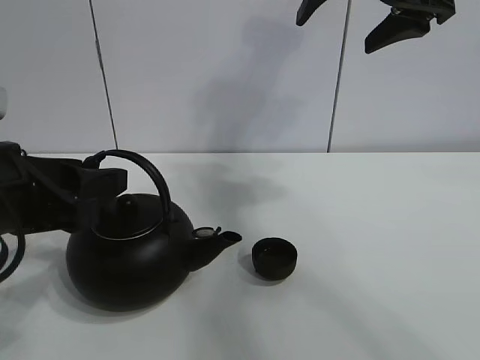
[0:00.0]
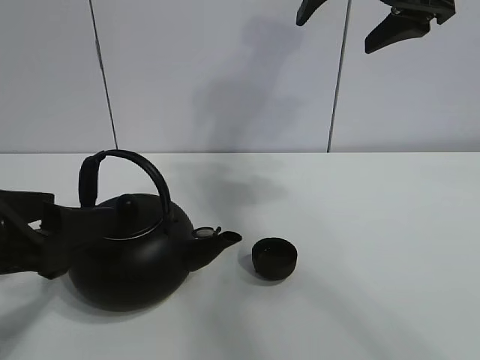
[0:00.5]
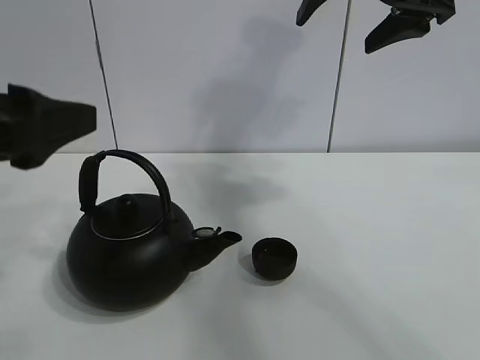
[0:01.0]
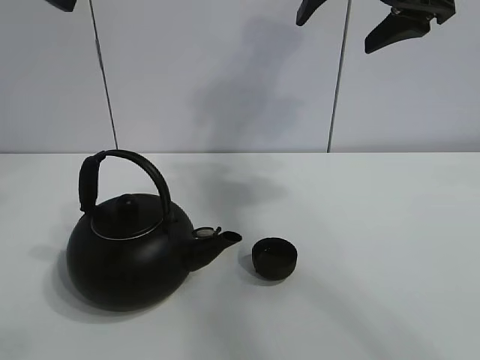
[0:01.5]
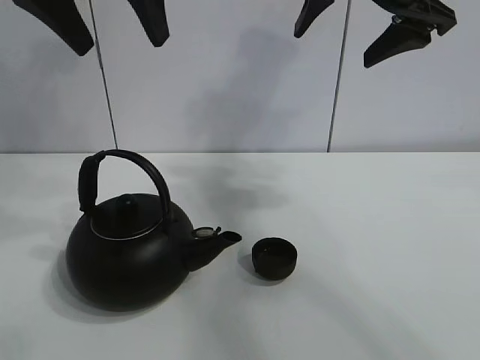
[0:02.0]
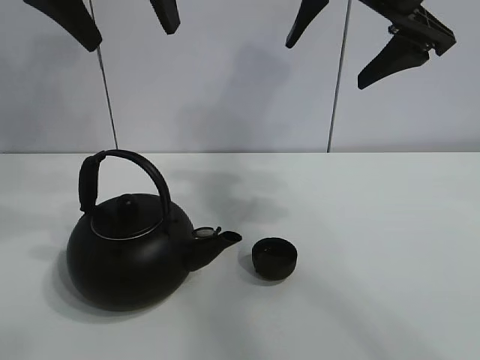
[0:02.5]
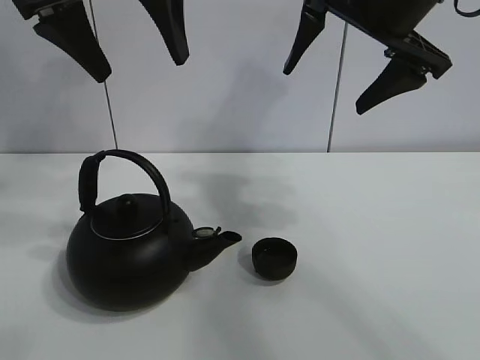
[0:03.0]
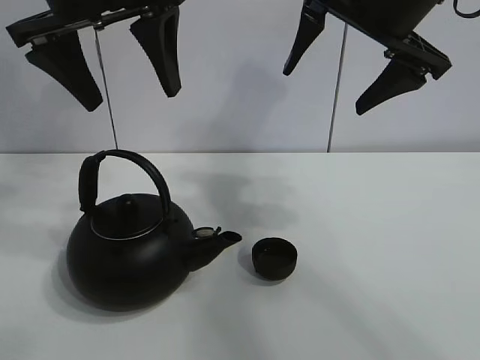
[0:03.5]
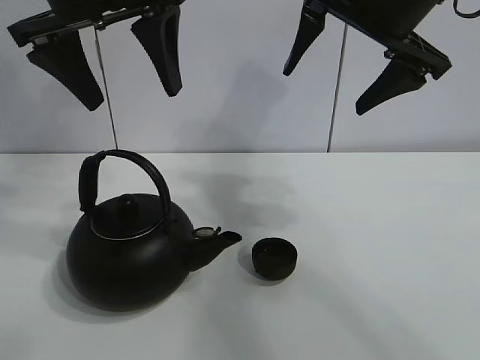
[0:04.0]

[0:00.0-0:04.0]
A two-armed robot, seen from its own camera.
Task of the whole recording: pour tea into the teacup.
0:00.0 to 0:02.0: The left gripper heads upward and forward, covering about 25 cm.
0:02.0 to 0:04.0: The grippers move only a little.

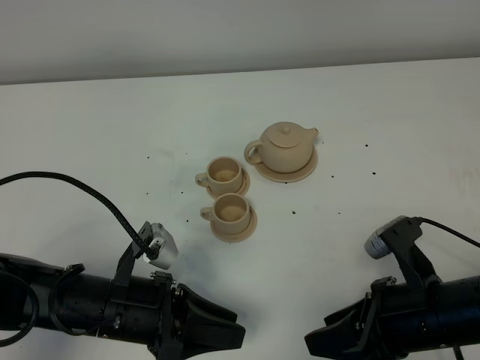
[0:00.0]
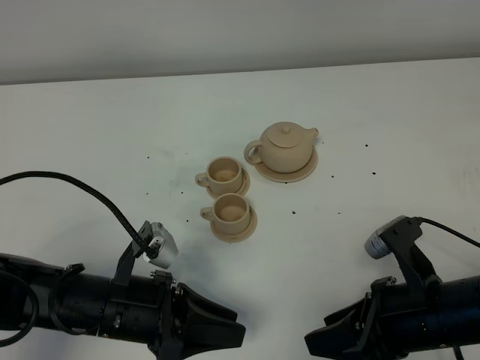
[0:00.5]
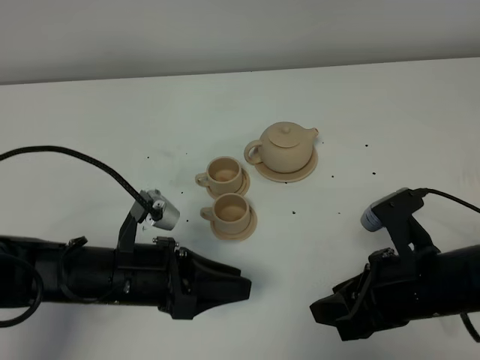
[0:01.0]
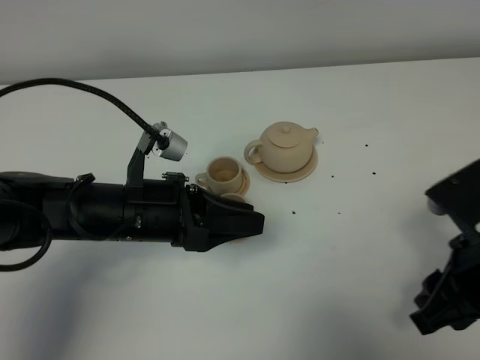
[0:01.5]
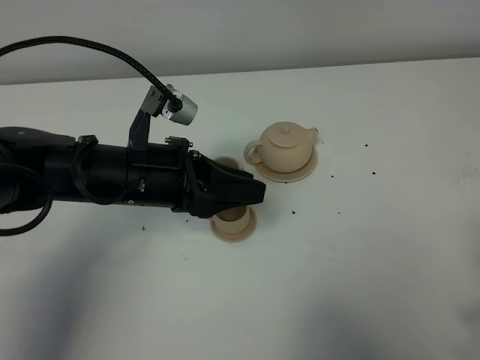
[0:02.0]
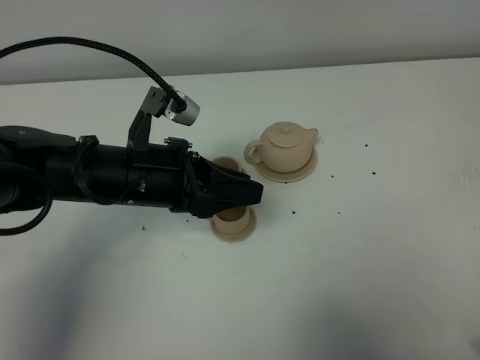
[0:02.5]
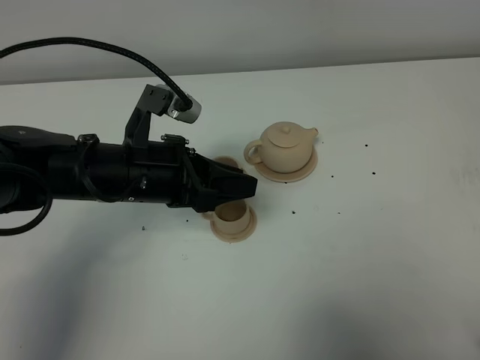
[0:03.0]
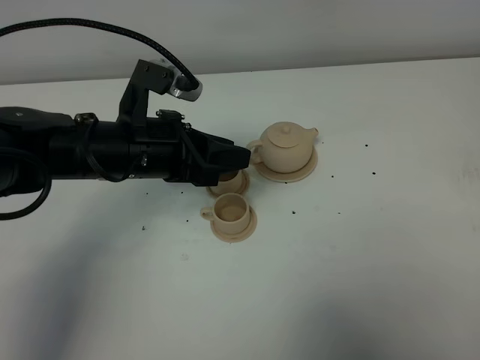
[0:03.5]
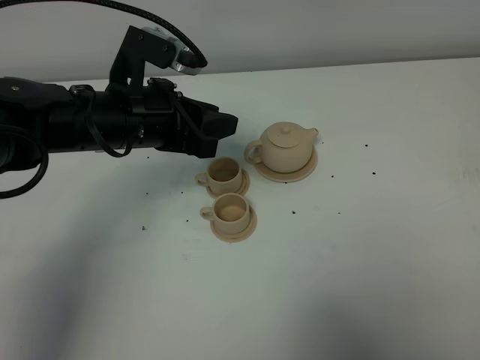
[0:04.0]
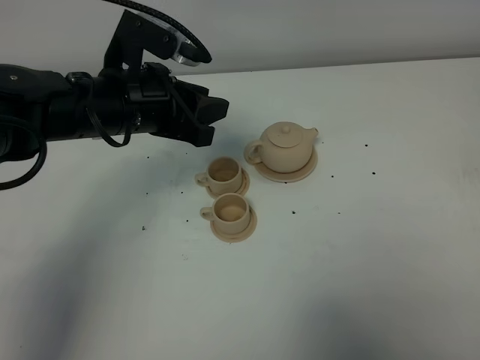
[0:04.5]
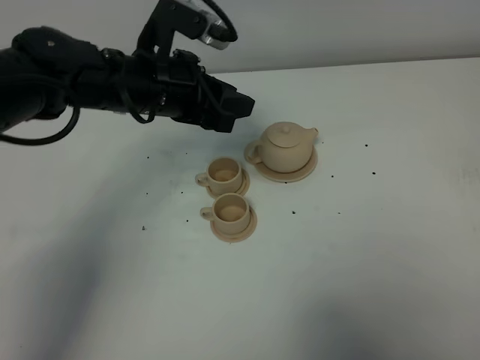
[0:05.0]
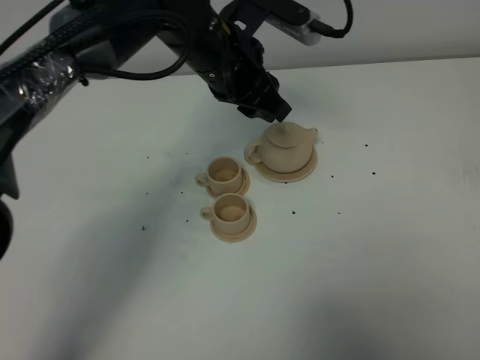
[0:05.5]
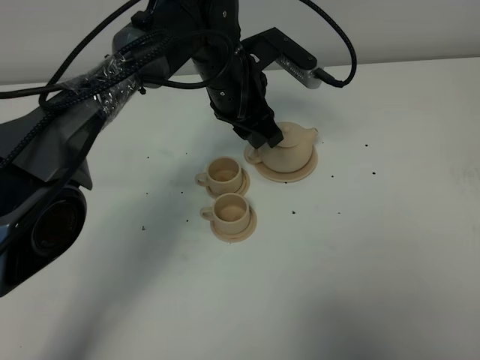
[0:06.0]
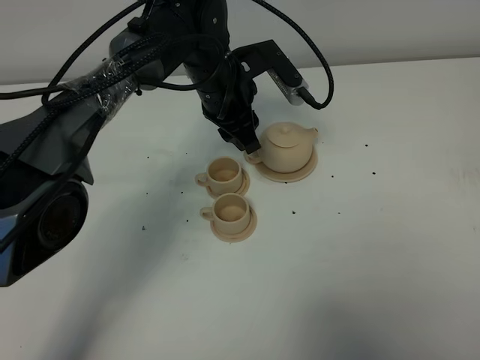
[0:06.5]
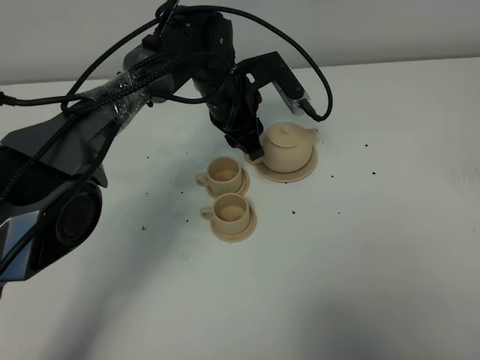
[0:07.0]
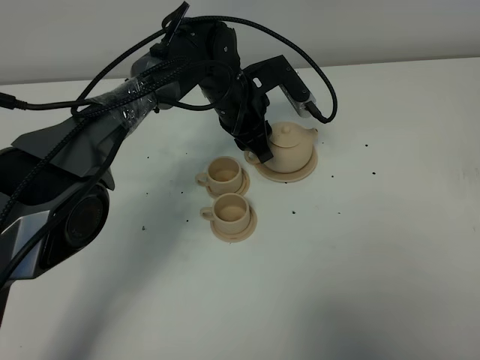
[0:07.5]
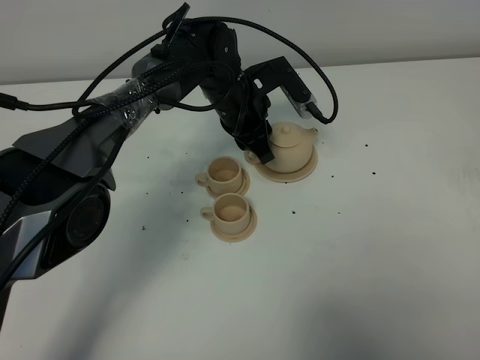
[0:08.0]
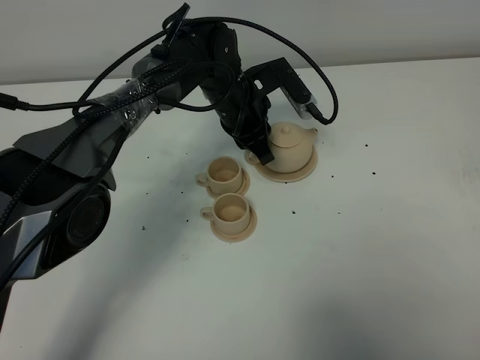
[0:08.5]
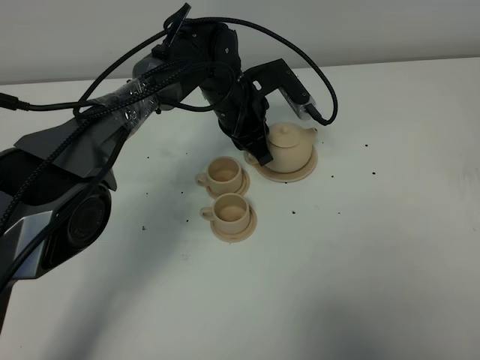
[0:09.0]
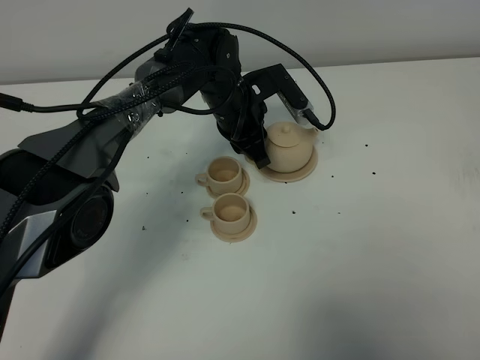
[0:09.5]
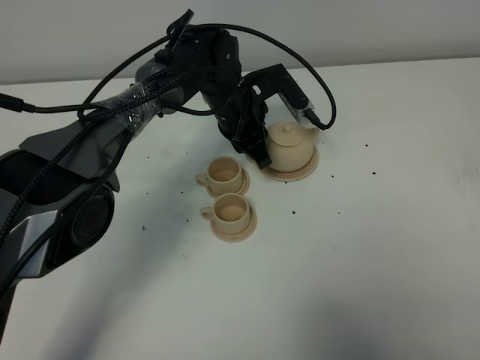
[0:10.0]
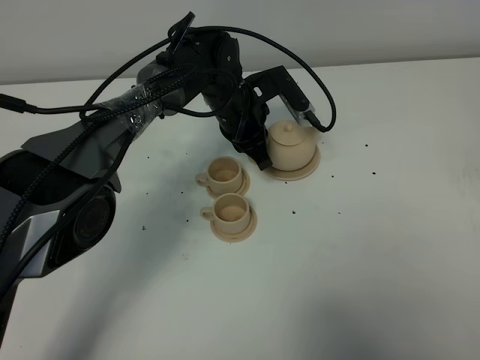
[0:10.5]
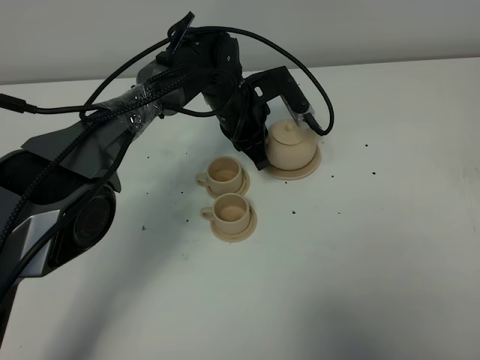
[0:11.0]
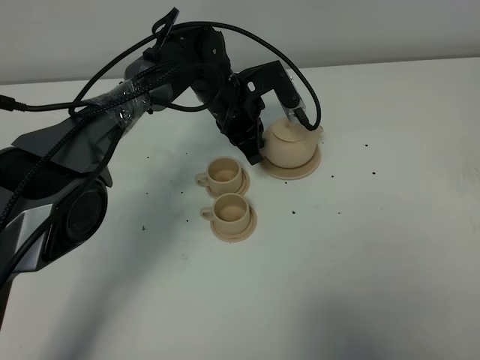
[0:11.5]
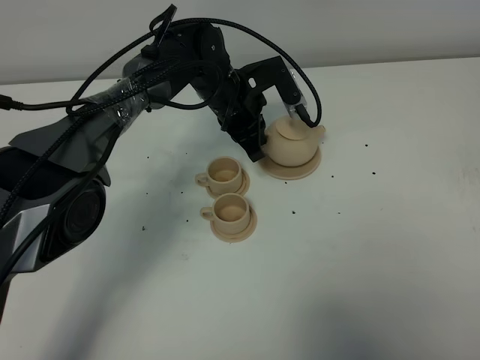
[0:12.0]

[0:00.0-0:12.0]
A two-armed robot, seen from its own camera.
Task of the whole recording: grasp the brown teapot and pour the tea into the two brown teacups one by one, put the brown teapot back in its original place.
0:00.0 to 0:02.0: The left gripper shifts about 15 cm forward and upward, while the right gripper heads upward, to the right and backward, covering approximately 15 cm.
0:02.0 to 0:04.0: The left gripper travels forward by some 5 cm, while the right gripper shifts about 5 cm backward.
0:04.0 to 0:06.0: The left gripper heads to the right and forward, covering approximately 15 cm.
0:06.0 to 0:08.0: The left gripper goes roughly 5 cm downward.
0:08.0 to 0:10.0: Neither gripper changes place.
0:10.0 to 0:12.0: There are only small adjustments of the grippers.

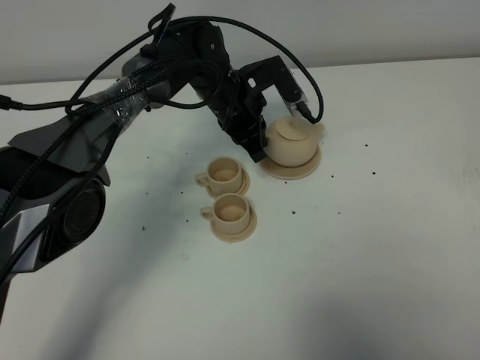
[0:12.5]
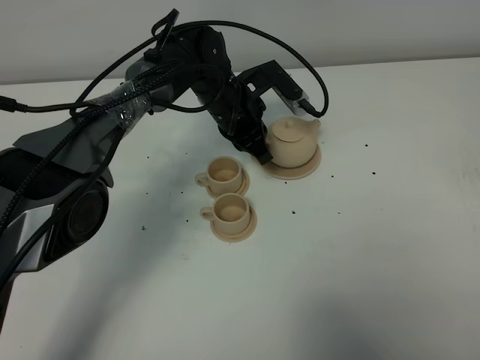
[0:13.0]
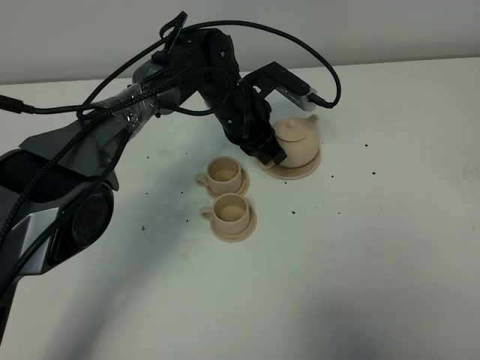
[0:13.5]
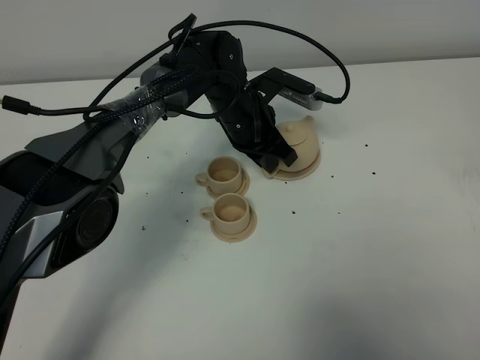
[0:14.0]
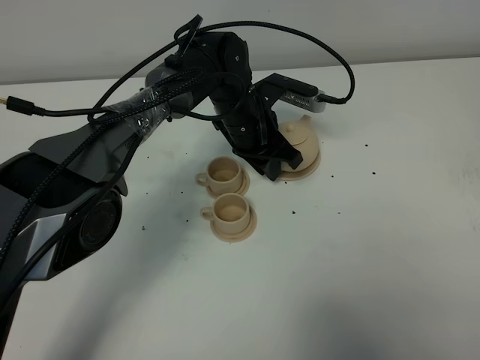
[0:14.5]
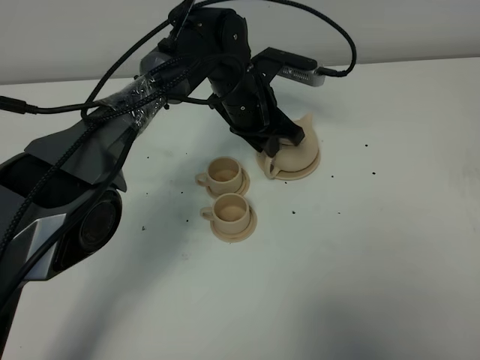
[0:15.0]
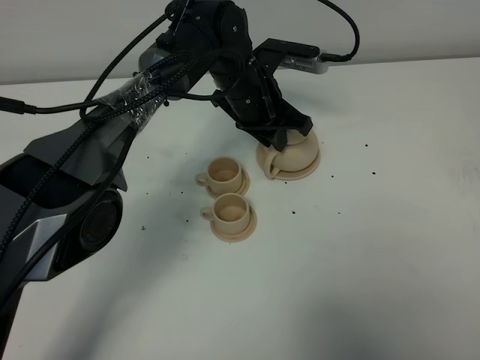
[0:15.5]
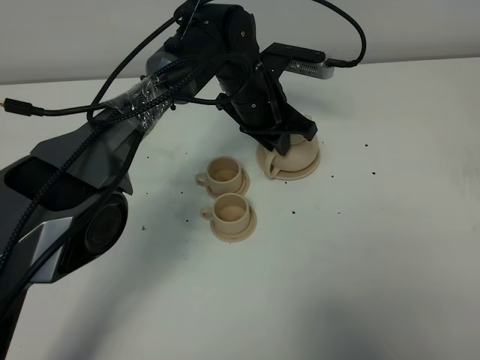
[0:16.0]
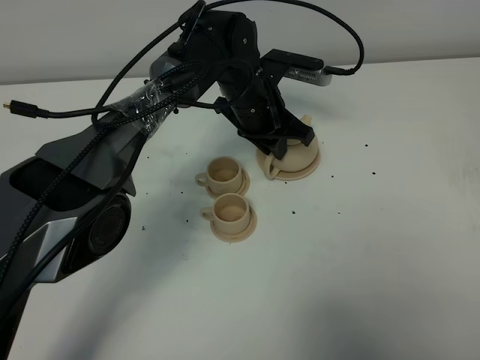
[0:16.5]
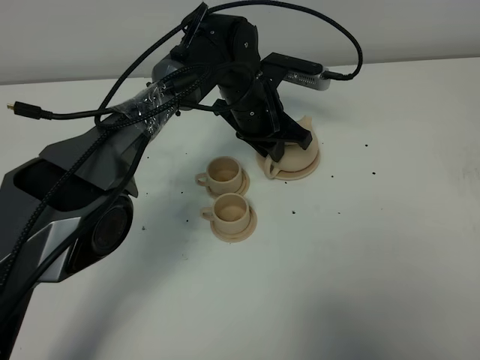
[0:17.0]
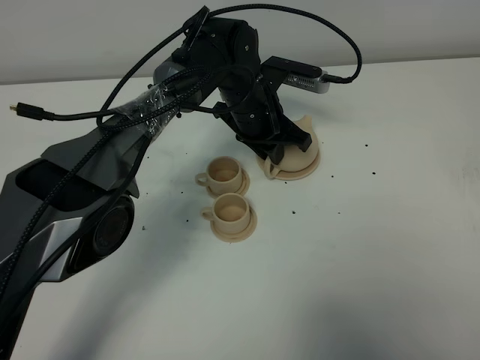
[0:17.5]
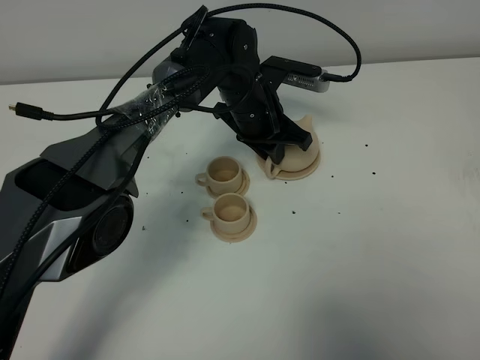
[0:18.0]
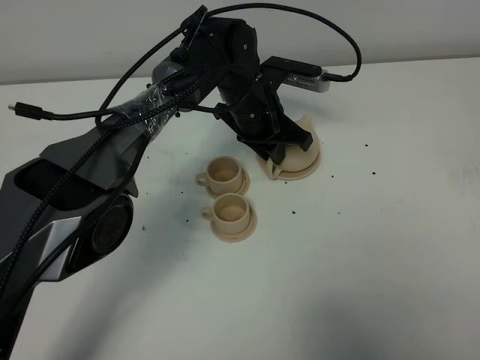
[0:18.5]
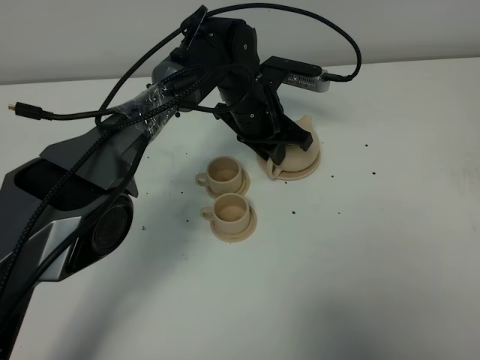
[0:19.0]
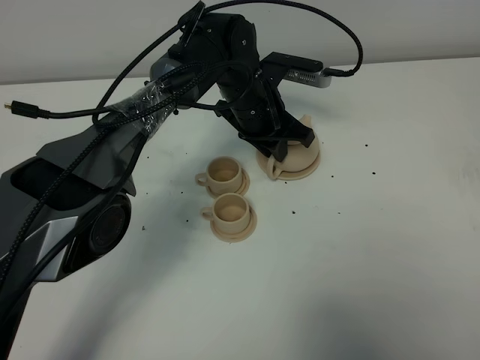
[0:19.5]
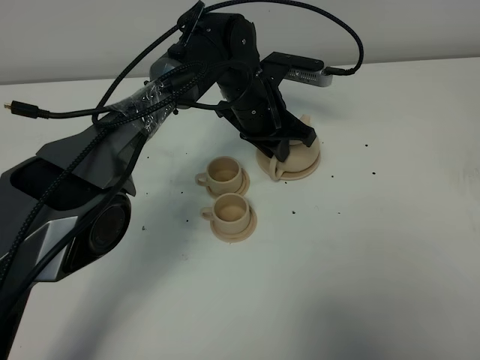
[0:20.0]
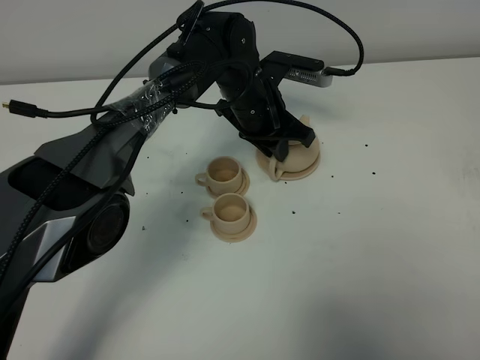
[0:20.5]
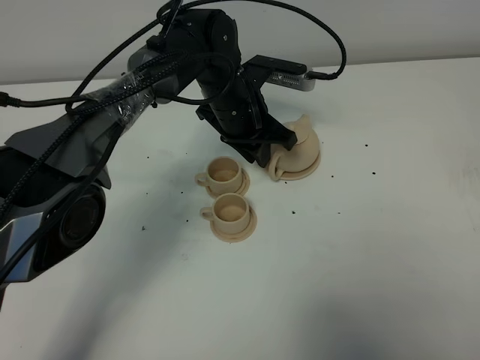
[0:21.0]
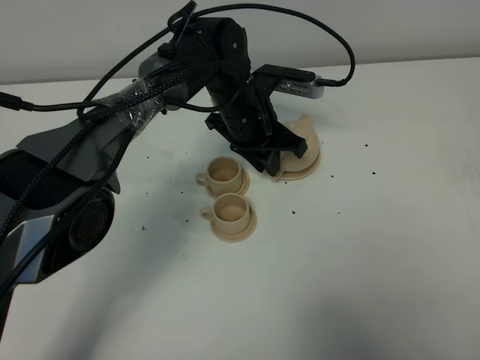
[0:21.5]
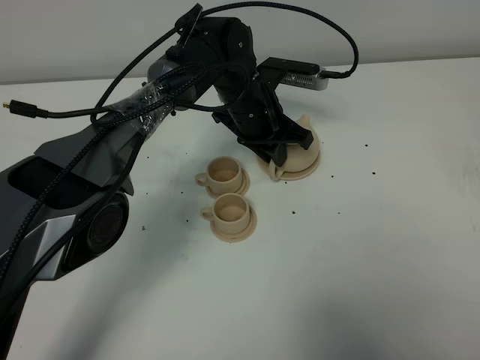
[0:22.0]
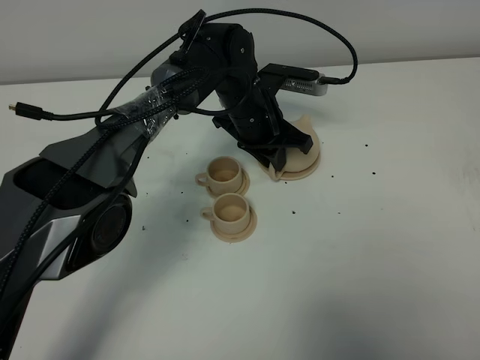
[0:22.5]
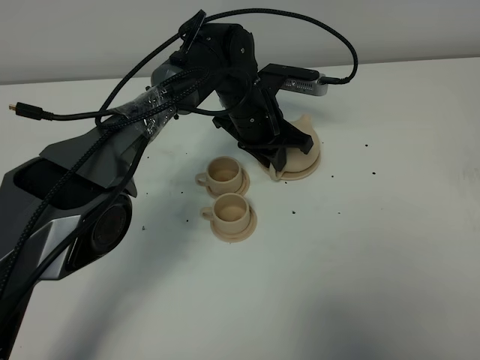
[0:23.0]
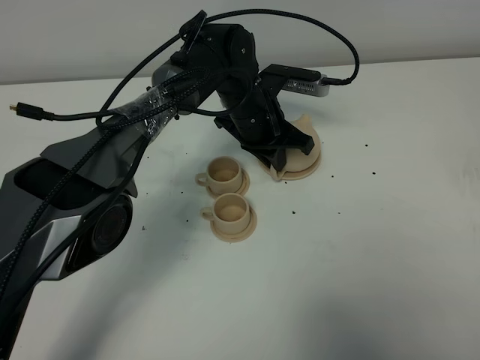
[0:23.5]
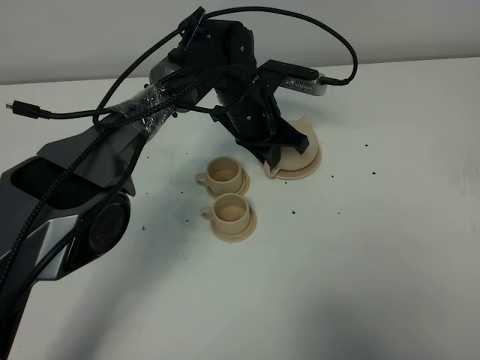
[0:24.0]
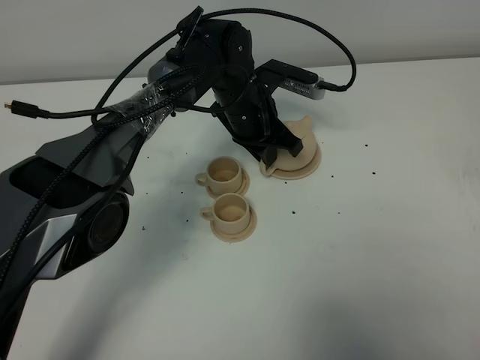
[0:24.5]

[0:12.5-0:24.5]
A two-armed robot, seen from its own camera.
Task of the whole recording: grasp the brown teapot and pour the tea into the two brown teacups one by one, put the brown teapot back in its original place.
0:14.5 to 0:16.5: The grippers move only a little.
0:16.5 to 0:20.5: Both grippers stay about where they are.
0:20.5 to 0:24.5: The grippers move only a little.
